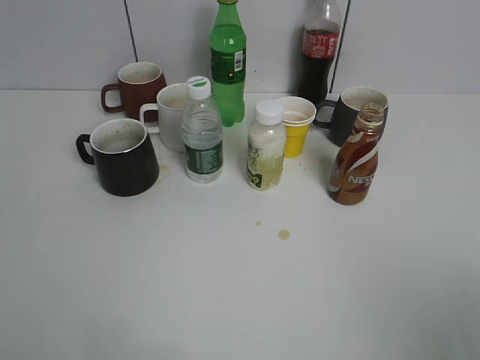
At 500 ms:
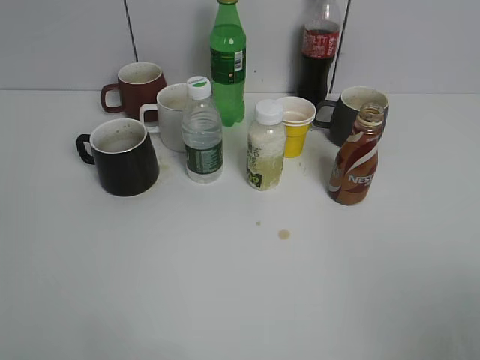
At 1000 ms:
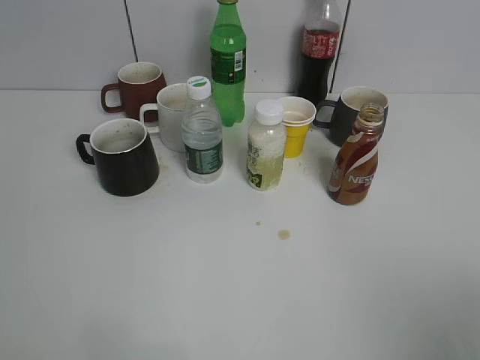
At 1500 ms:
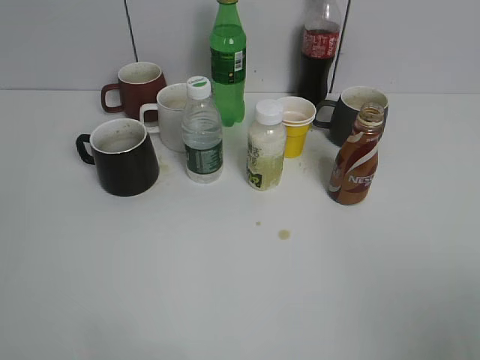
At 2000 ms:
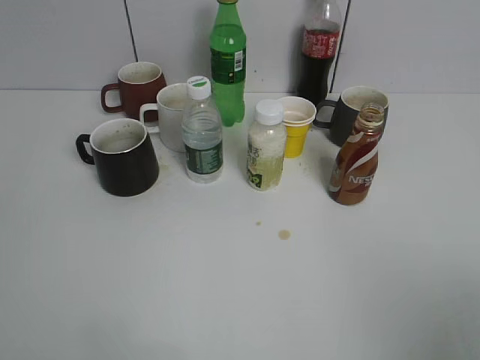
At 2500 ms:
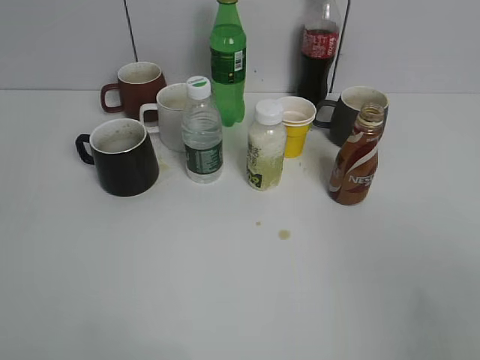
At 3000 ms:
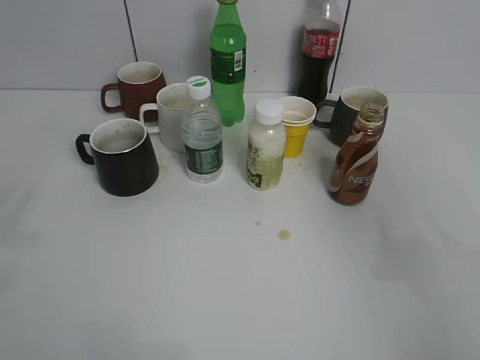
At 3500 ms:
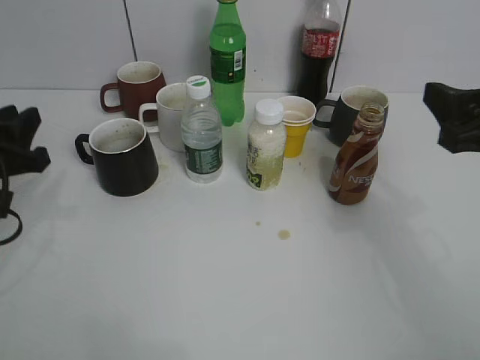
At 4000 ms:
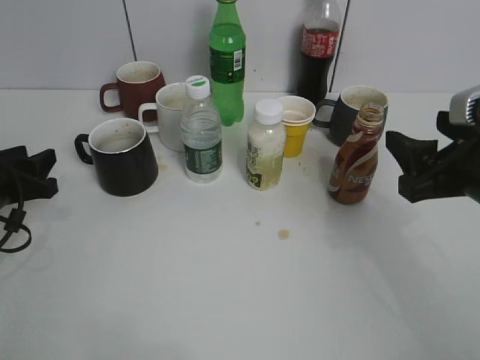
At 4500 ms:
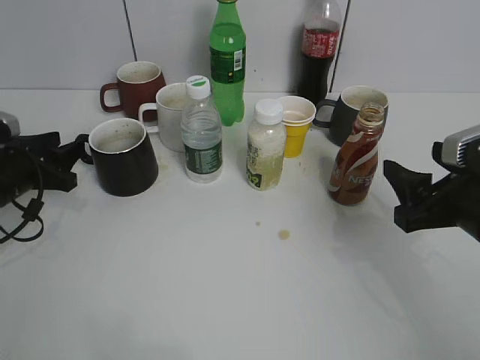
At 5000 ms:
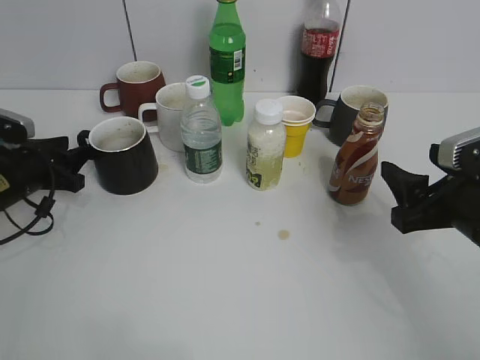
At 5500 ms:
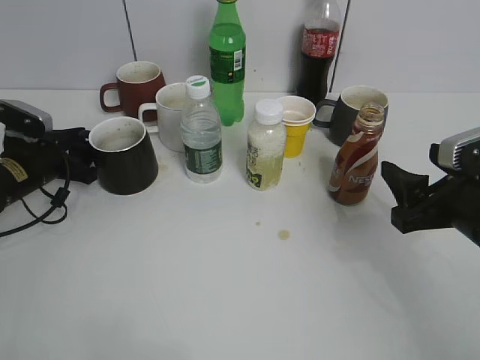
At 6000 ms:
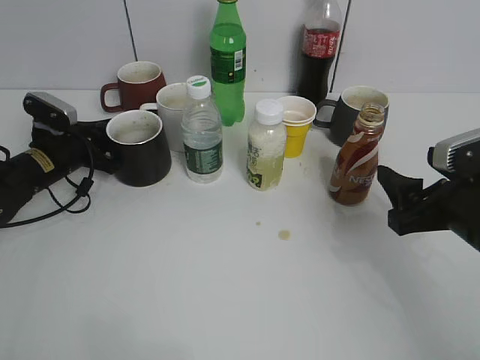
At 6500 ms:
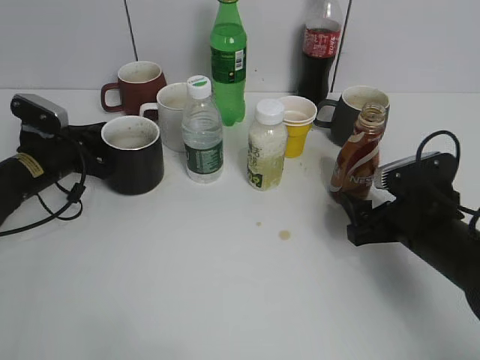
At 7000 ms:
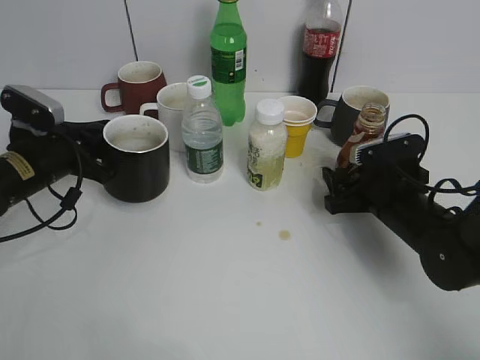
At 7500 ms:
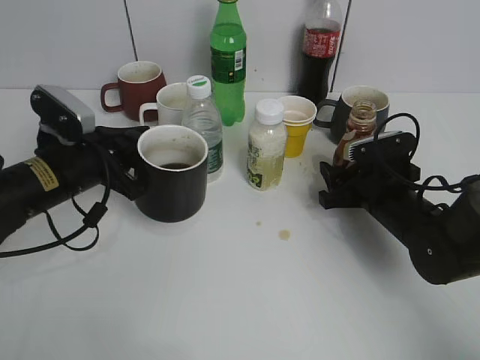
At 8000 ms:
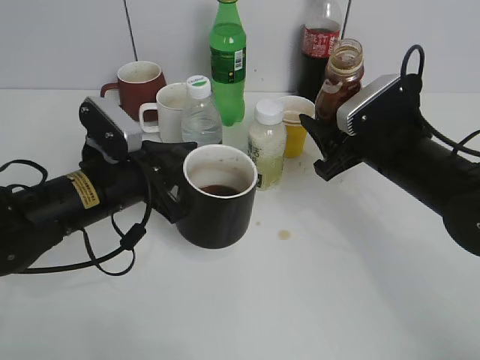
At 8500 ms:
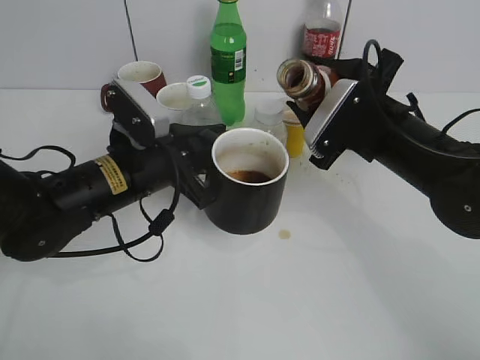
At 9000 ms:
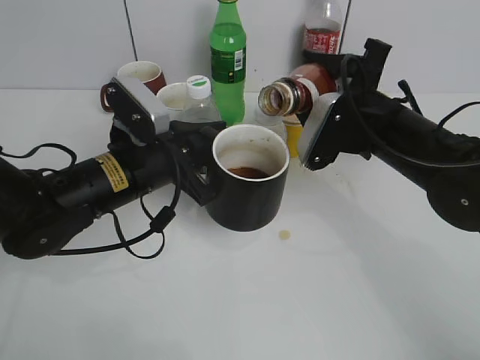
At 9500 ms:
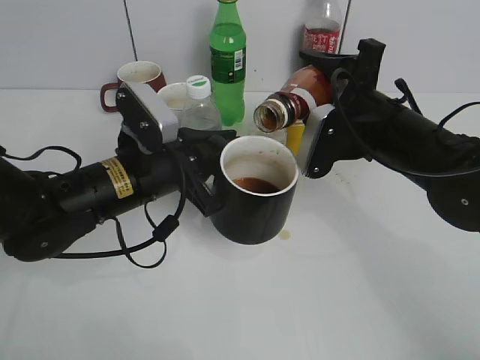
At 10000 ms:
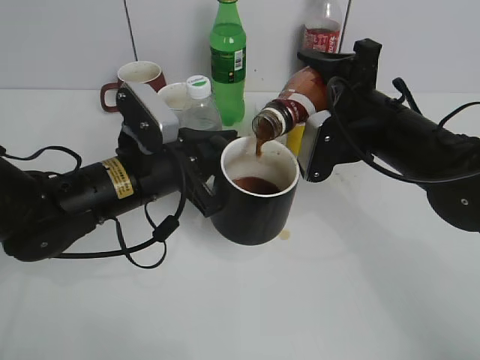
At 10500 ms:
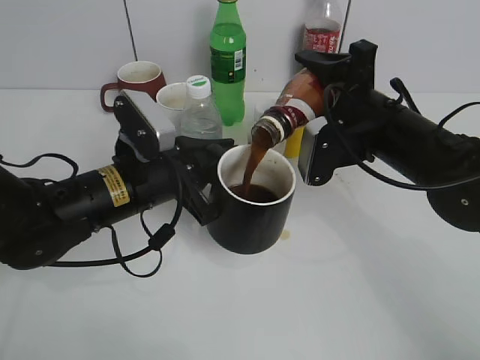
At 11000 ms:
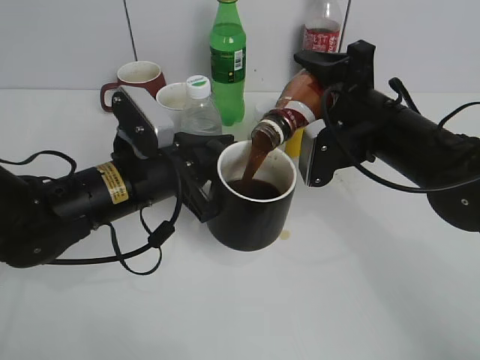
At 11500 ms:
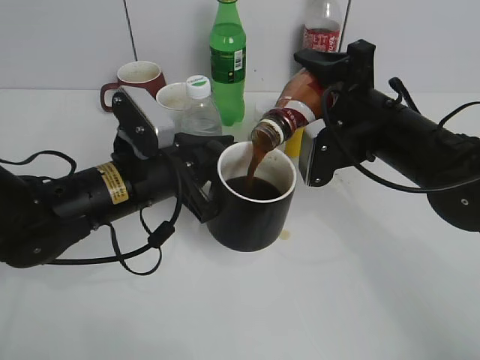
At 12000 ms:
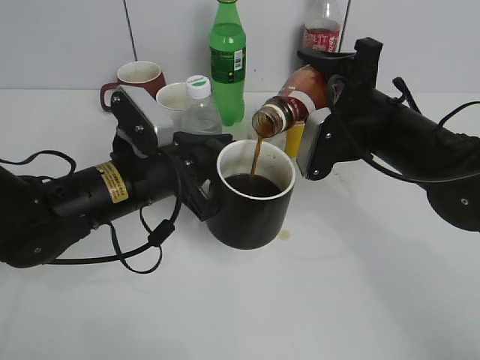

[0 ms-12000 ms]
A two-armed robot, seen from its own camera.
Step, 2500 ms to 5500 ms: Grasp the black cup with left gripper.
Step, 6500 ms to 7000 ms: Lift the black cup with left gripper.
2000 ms to 4000 ms: Both grippers travel together forward and downward, roughly 30 cm. The right gripper closes up. The left gripper opens up.
4000 ms to 6000 ms: The left gripper moves forward, approximately 10 cm, and closes up.
6000 ms to 8000 ms: The right gripper goes some 10 cm forward and to the left, and closes its fingers, while the left gripper heads backward, to the right and upward, covering some 20 cm.
10000 ms to 12000 ms: The grippers move only a little.

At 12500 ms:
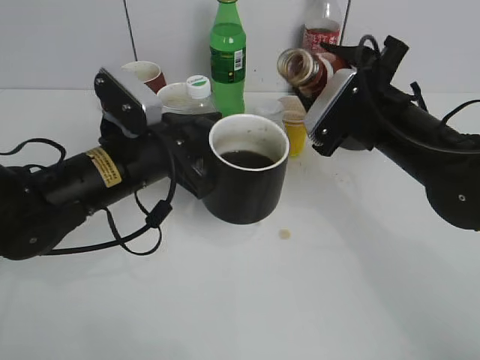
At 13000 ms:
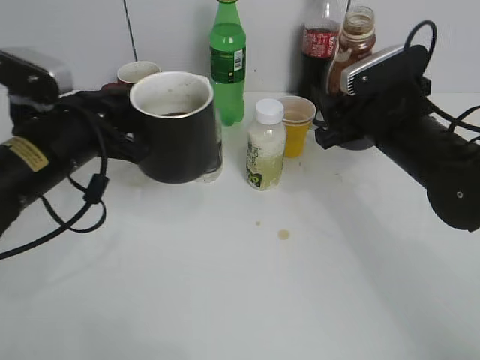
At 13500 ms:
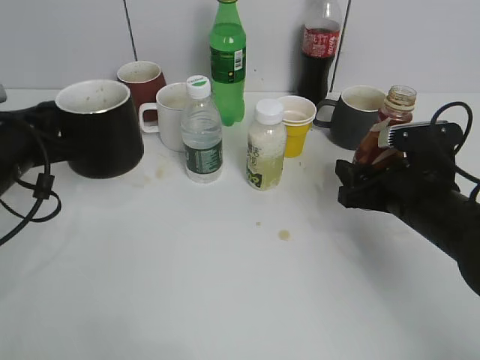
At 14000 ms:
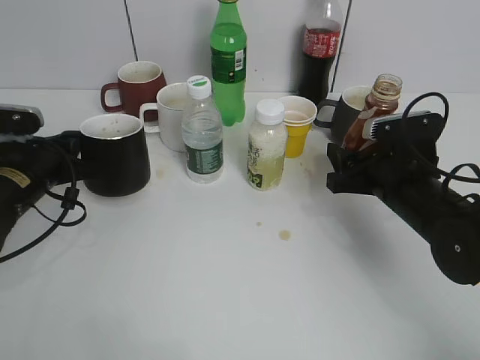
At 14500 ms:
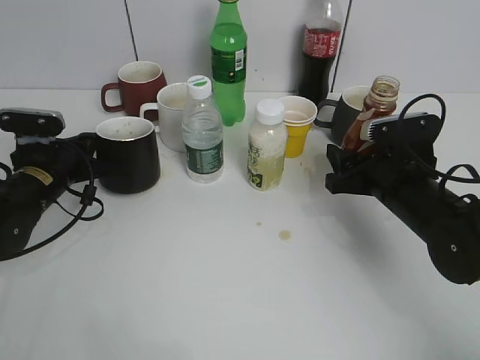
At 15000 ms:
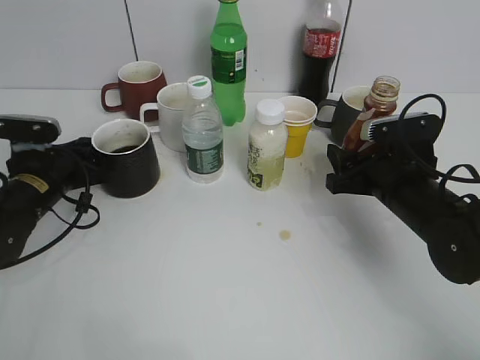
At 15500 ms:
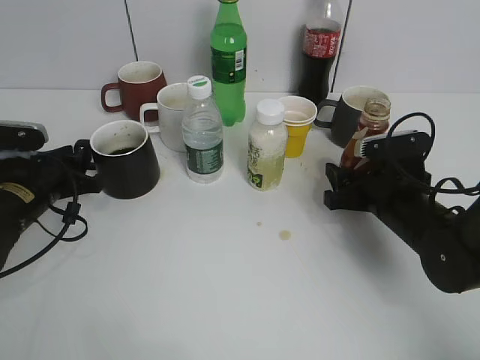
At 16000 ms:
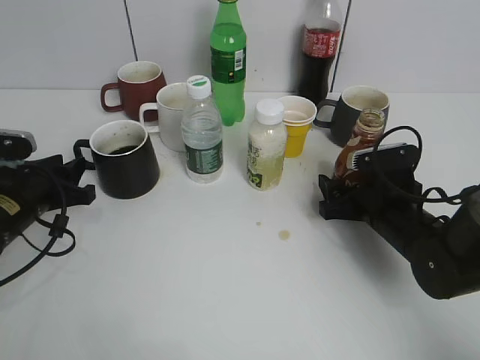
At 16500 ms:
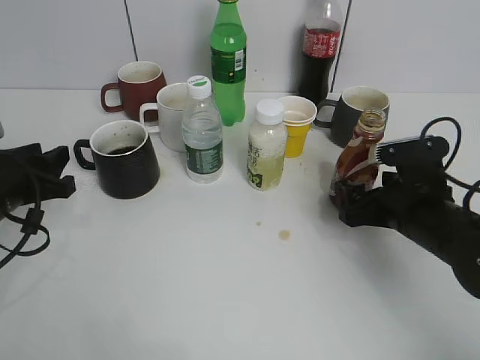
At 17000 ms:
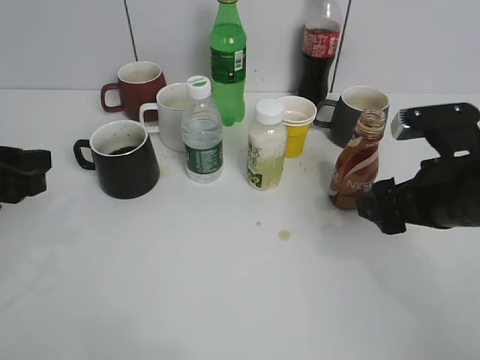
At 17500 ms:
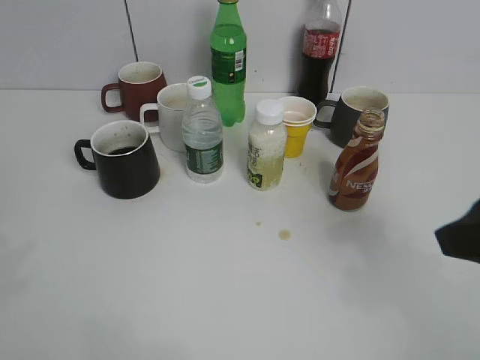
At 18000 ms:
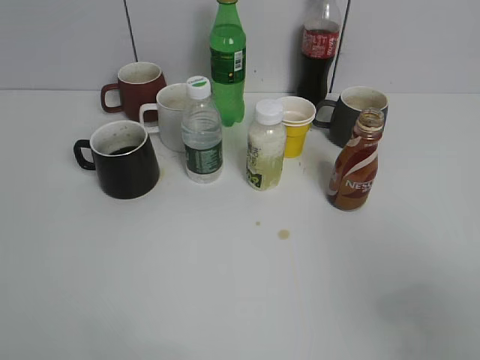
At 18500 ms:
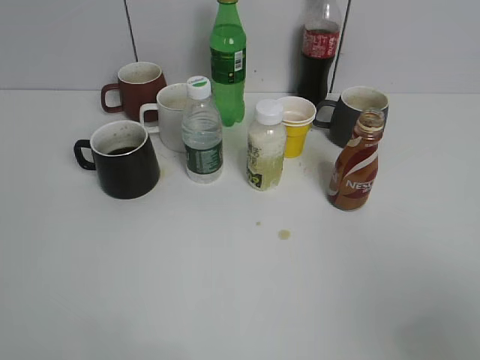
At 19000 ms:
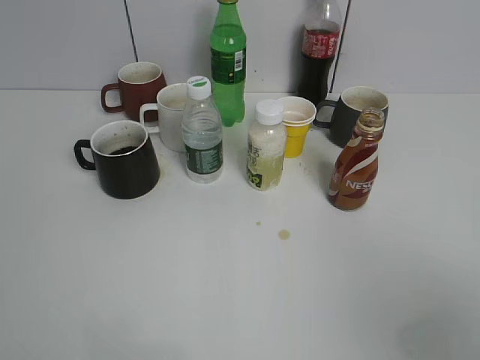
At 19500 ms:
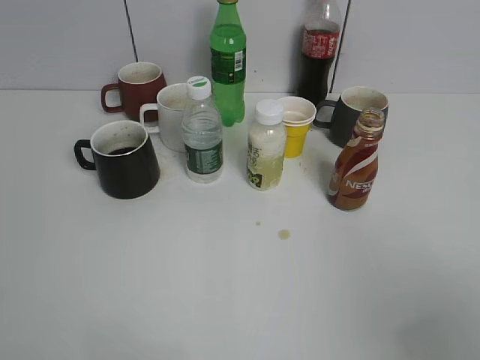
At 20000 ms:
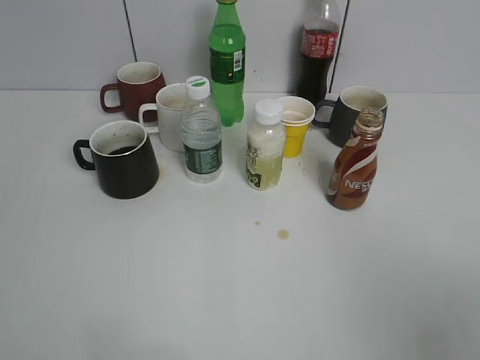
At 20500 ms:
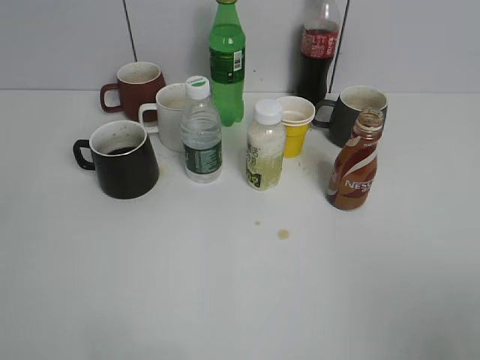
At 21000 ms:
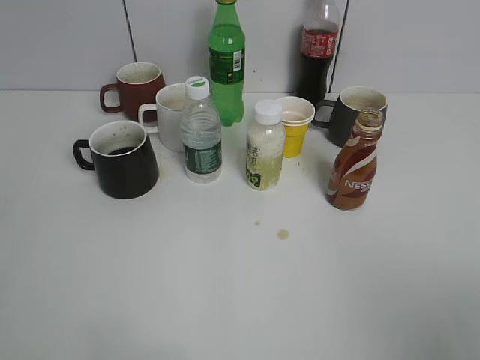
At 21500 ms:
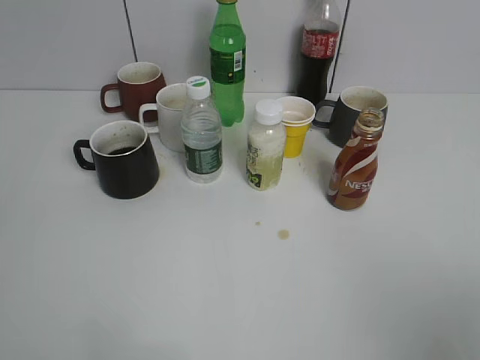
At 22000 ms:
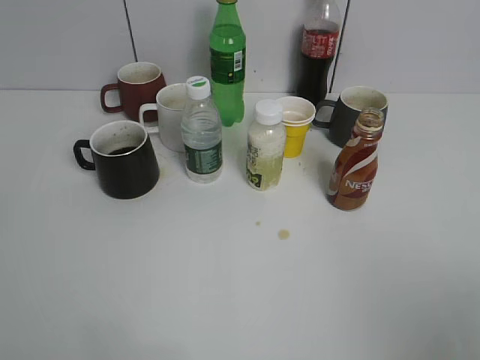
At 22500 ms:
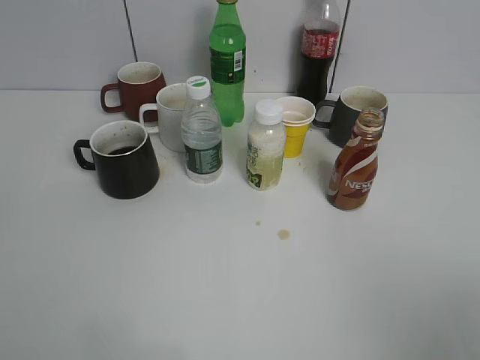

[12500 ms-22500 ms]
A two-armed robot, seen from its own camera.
Step, 13000 ms to 16500 ms: Place the coffee bottle on the table with right gripper.
12500 ms to 14500 ms: The left gripper shifts about 15 cm to the left, downward and forward, while the right gripper shifts some 10 cm downward.
14500 ms to 16500 ms: The left gripper travels backward and upward by about 10 cm, and opens up, while the right gripper opens.
16500 ms to 18500 ms: Both grippers move backward and upward, roughly 30 cm.
20500 ms to 22500 ms: Both grippers stay about where they are.

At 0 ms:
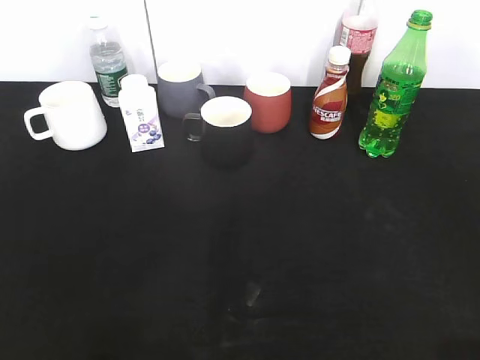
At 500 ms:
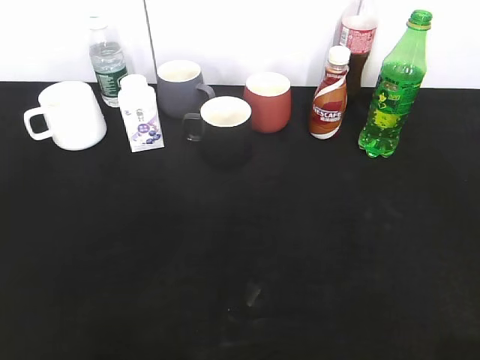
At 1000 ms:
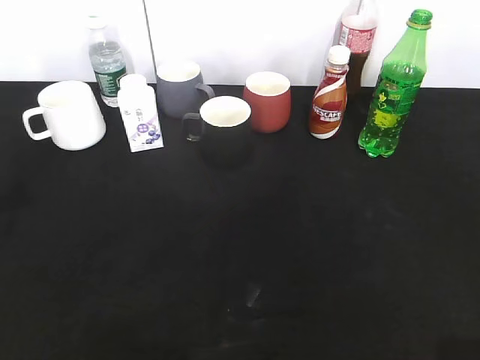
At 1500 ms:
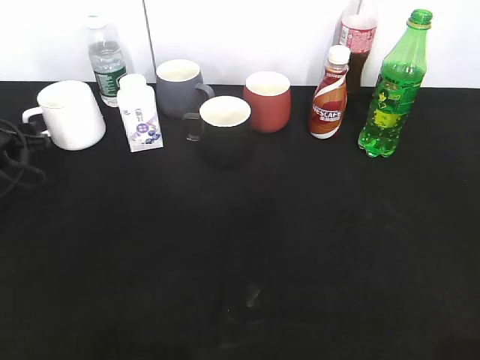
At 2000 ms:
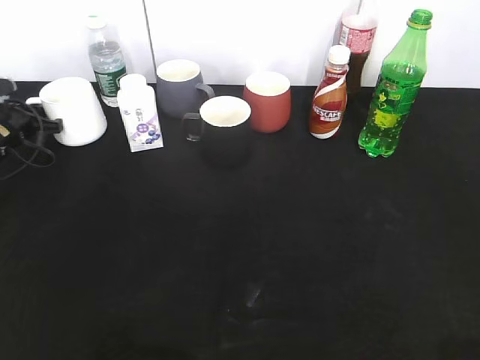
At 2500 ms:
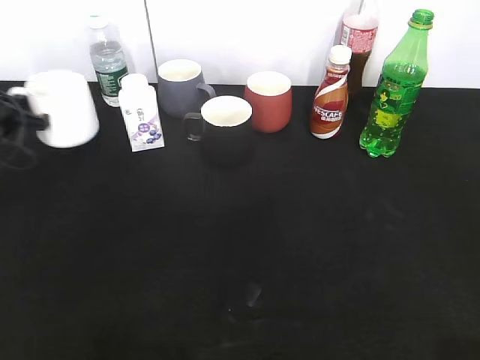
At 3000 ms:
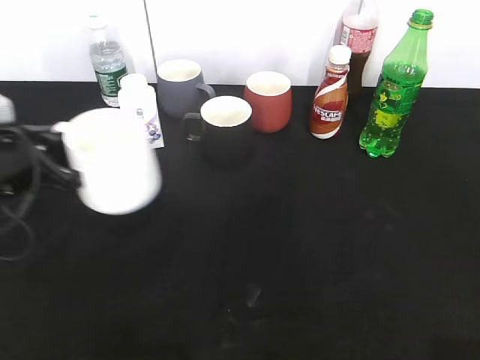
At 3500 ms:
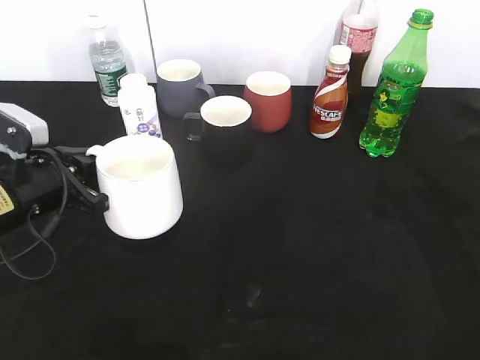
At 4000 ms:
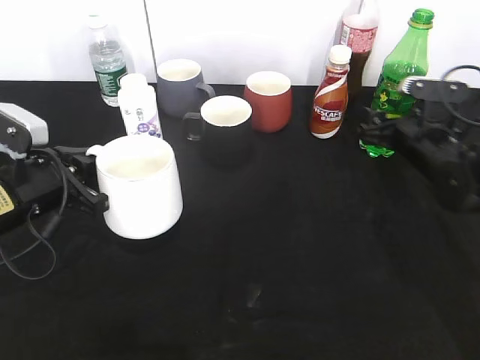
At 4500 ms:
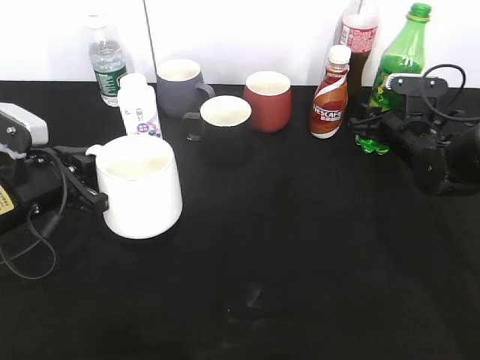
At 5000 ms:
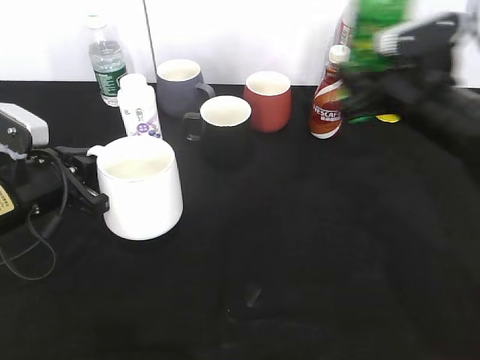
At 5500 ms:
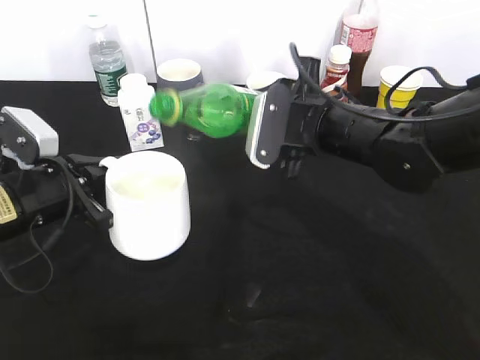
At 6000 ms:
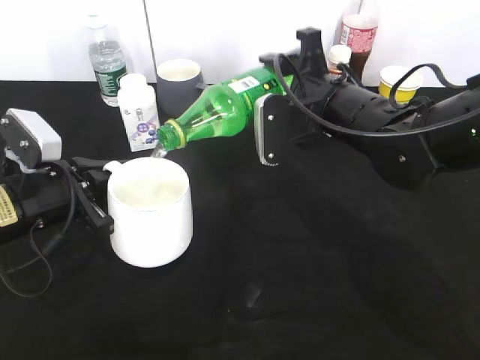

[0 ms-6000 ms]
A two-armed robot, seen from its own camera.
Step, 0 ms to 2000 ms: Grasp the white cup with left gripper.
Step, 2500 ms to 3000 ms: Lift the white cup with left gripper.
Step, 3500 ms to 4500 ms: Grasp the bottle with sprite with right gripper.
0 ms to 2000 ms: The left gripper travels forward and downward by some 50 cm, and closes its fingers.
2000 ms to 4000 ms: The right gripper heads forward and downward, covering some 40 cm, while the left gripper moves backward and to the right, some 20 cm.
4000 ms to 6000 ms: The right gripper shifts approximately 15 cm to the left and upward, and closes up.
